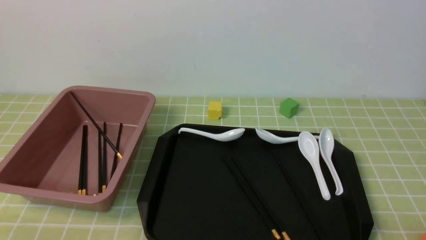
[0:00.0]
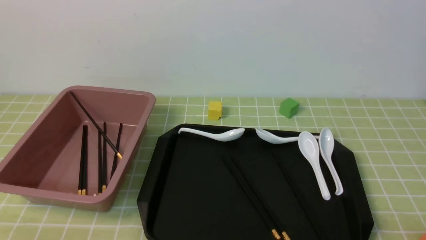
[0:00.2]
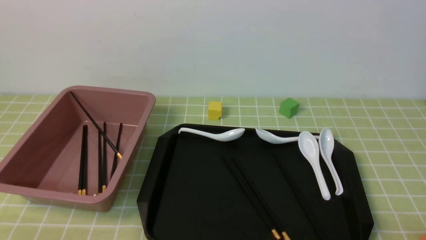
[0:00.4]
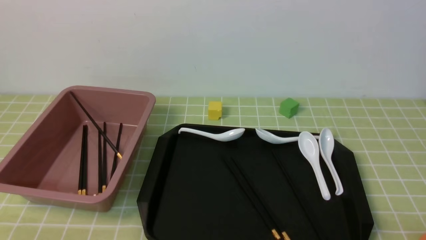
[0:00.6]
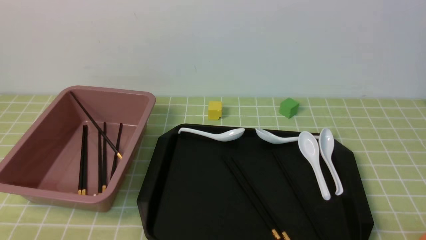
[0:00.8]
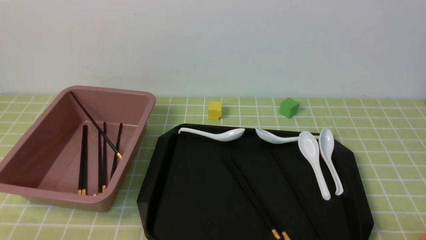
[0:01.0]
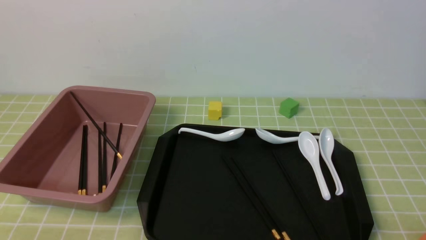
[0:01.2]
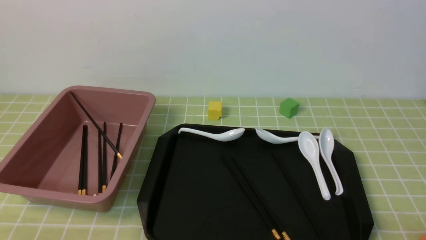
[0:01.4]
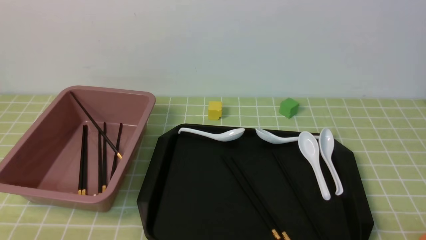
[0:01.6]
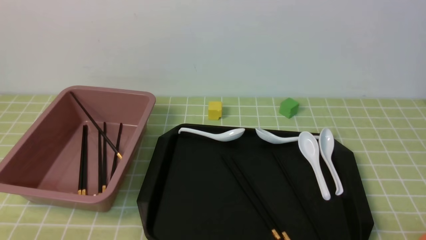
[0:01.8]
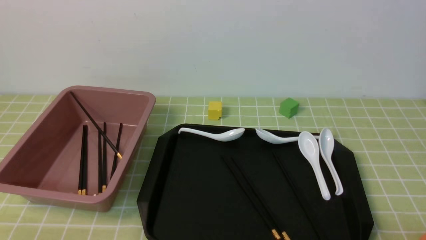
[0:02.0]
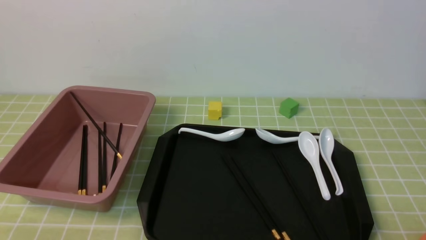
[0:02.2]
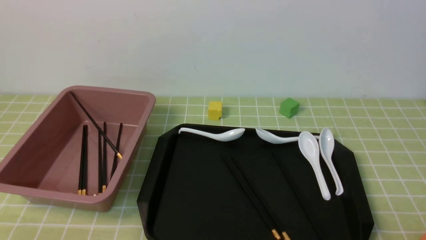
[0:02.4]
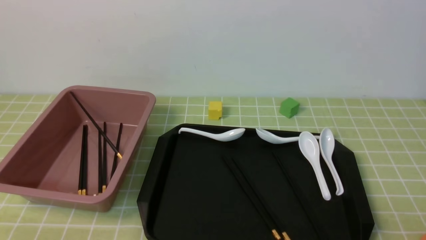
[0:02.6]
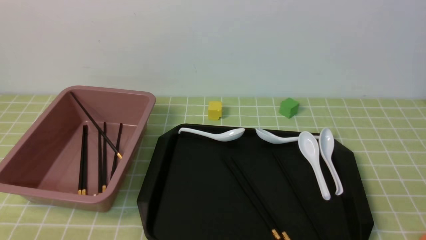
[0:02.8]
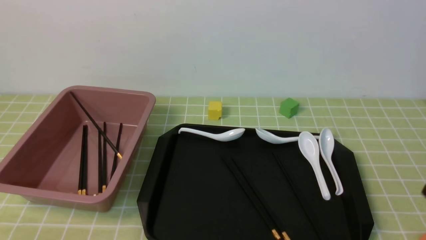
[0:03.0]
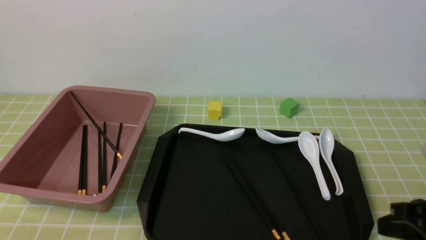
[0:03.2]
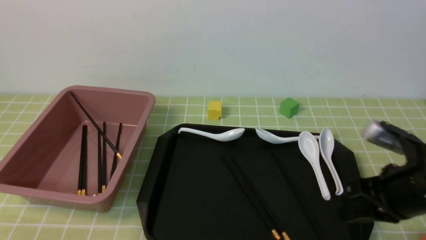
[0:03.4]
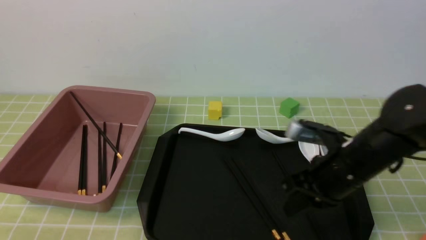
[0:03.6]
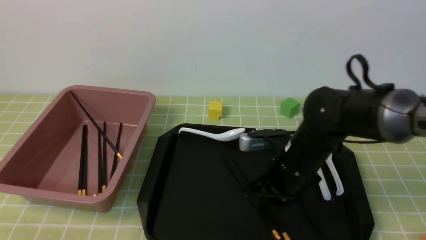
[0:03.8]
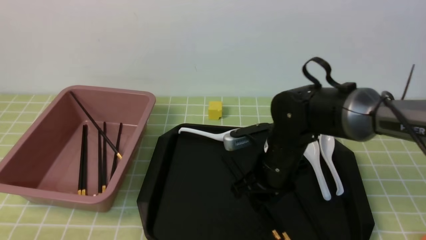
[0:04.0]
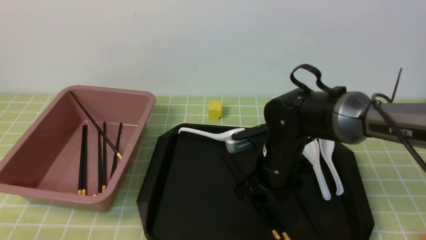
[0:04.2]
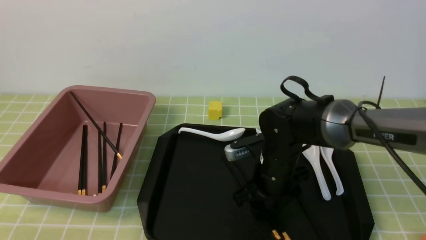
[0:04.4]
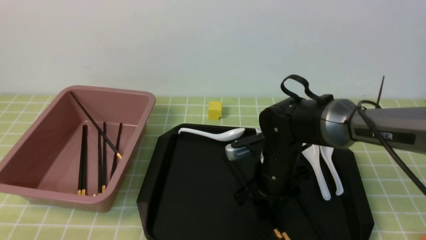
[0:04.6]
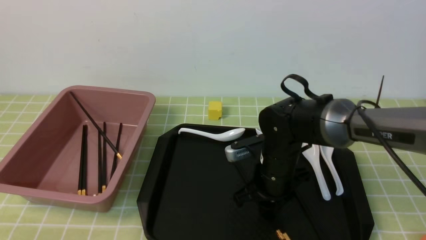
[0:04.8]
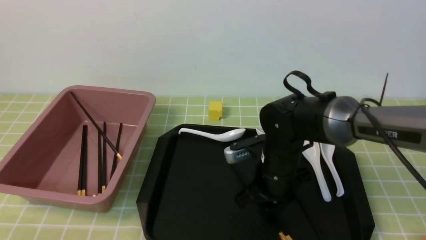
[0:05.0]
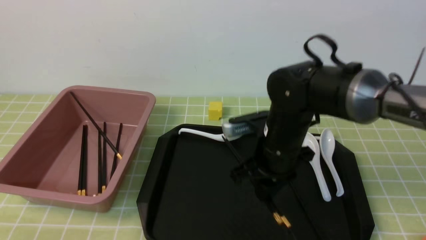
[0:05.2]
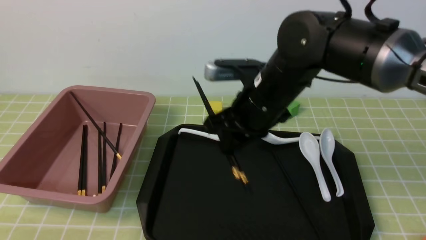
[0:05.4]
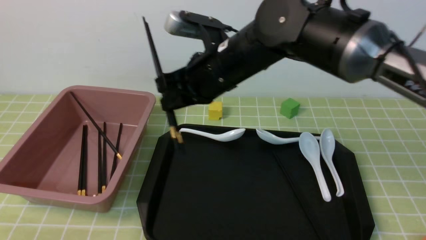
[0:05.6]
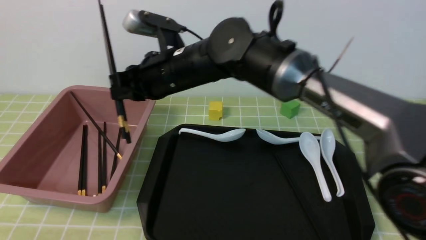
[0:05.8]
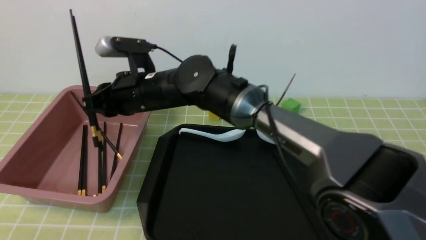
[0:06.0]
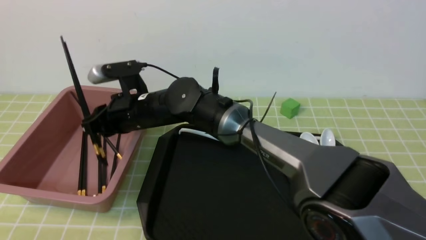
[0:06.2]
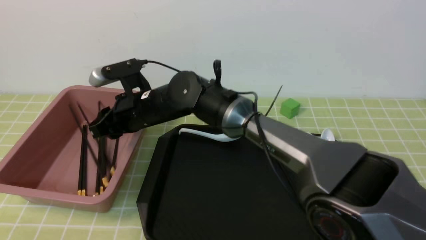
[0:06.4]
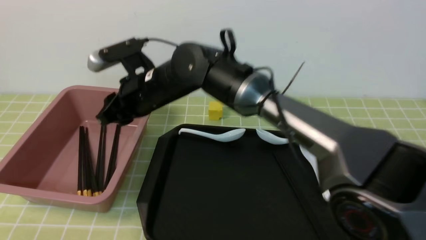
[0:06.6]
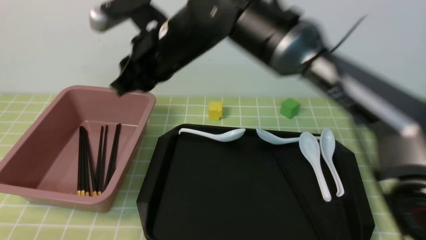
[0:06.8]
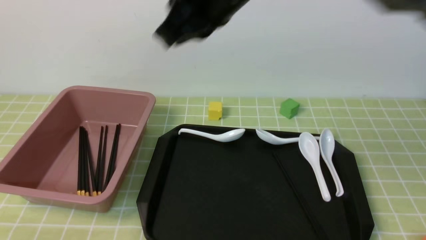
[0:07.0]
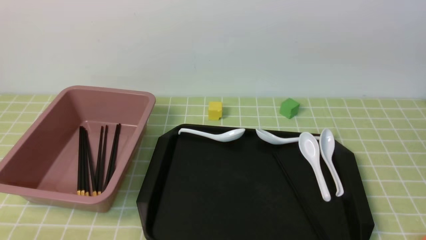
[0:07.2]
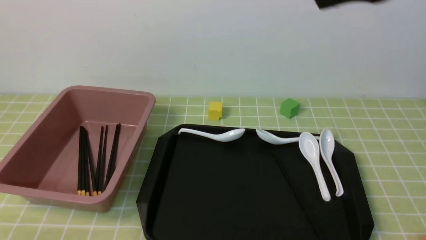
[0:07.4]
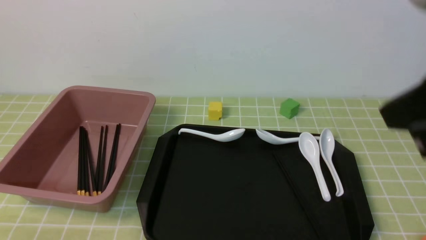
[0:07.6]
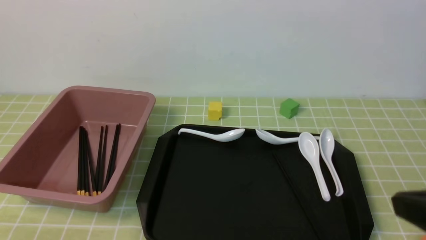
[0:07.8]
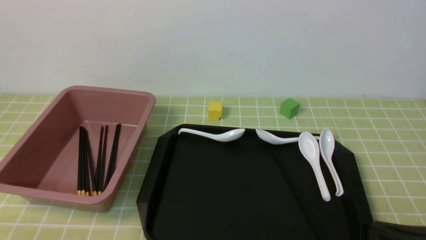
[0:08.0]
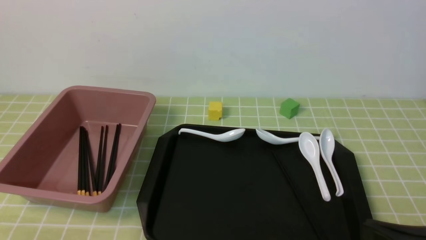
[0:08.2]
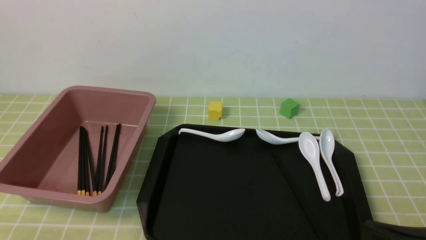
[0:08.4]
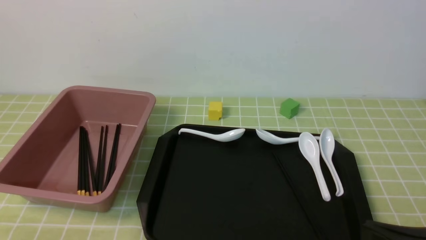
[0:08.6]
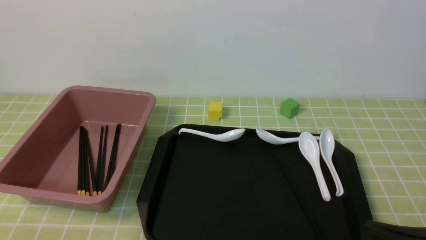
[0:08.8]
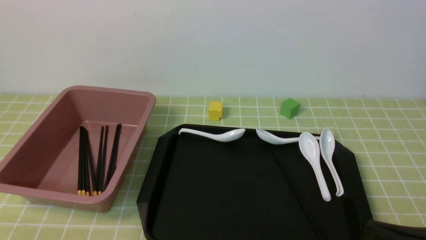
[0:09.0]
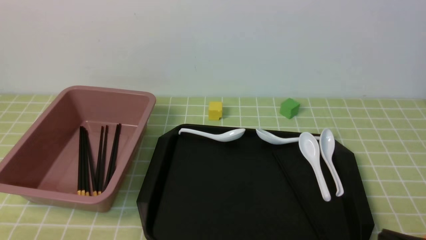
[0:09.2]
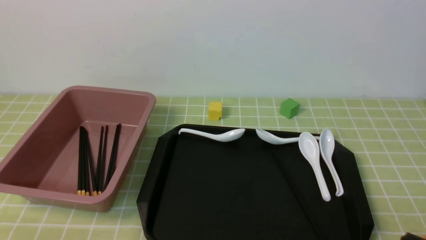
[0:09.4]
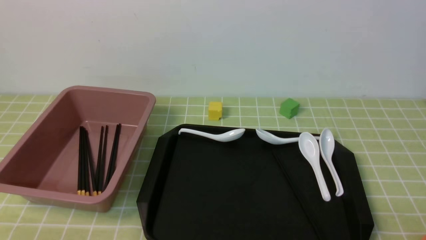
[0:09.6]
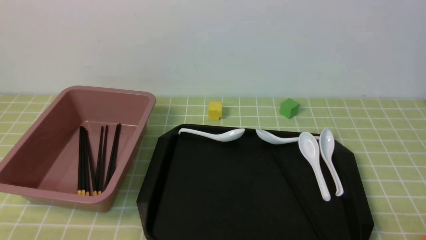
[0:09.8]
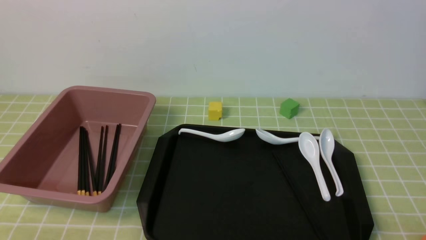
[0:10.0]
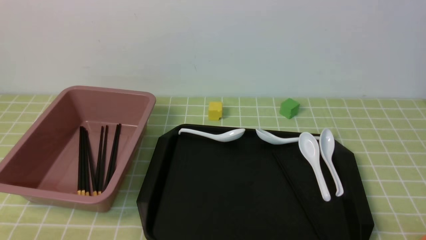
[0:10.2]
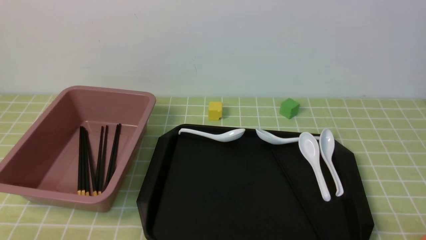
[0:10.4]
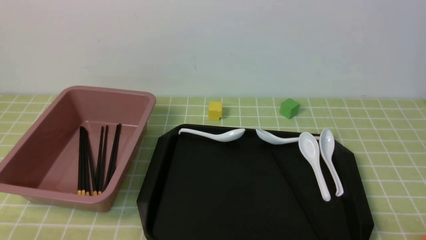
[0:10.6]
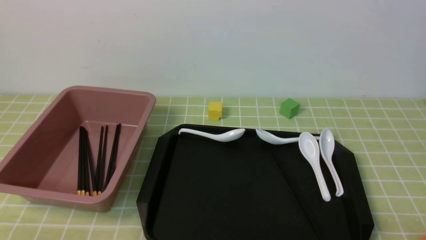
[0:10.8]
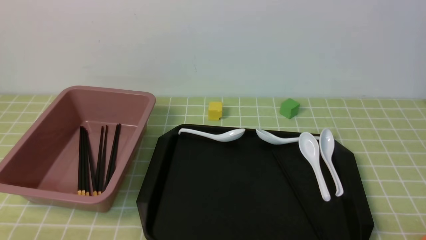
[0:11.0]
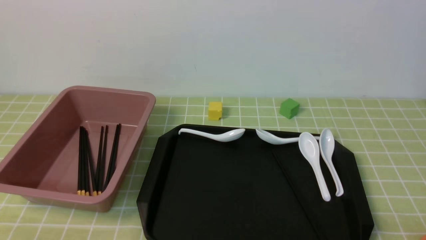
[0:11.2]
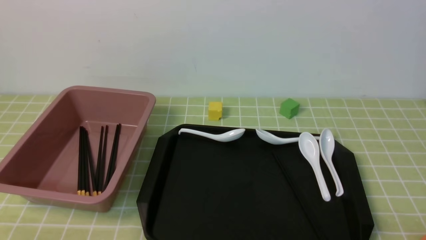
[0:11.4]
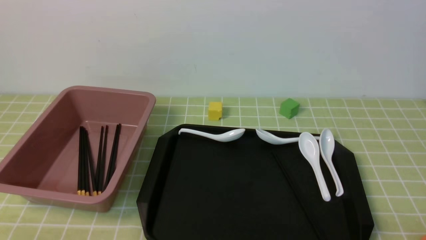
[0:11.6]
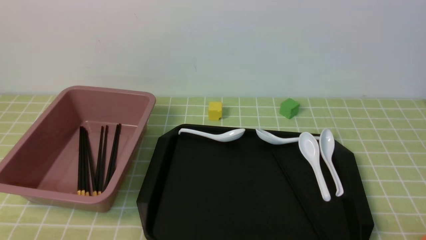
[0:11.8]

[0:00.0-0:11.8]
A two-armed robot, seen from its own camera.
Step, 0:00.0 to 0:05.2: use the right arm to grab a pair of chopsticks.
Step, 0:05.6 to 0:06.6: use the right arm to put the chopsticks into the lunch box.
0:00.0 to 0:01.4: Both grippers stay about where they are.
0:03.0 to 0:04.4: The right gripper travels forward, to the left and downward by about 30 cm, and opens its fingers.
0:04.4 to 0:06.0: The right gripper travels to the left and upward by about 20 cm, and closes its fingers.
0:06.0 to 0:07.4: The right gripper travels to the right, upward and backward by roughly 40 cm, and closes.
0:07.4 to 0:08.8: The right gripper moves downward and backward, some 25 cm.
0:08.8 to 0:10.4: The right gripper heads downward and to the right, covering approximately 10 cm.
0:10.4 to 0:11.8: The two grippers keep their place.
